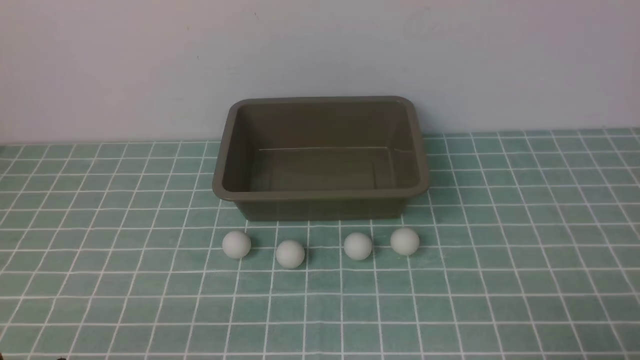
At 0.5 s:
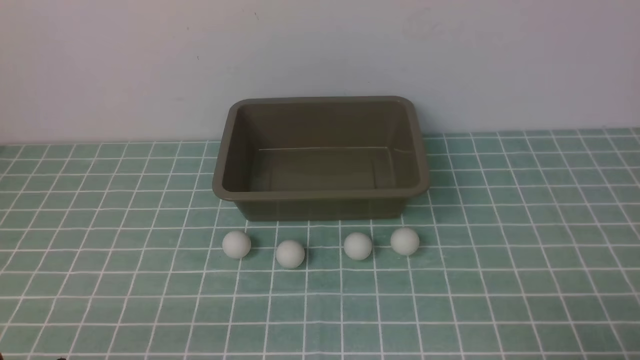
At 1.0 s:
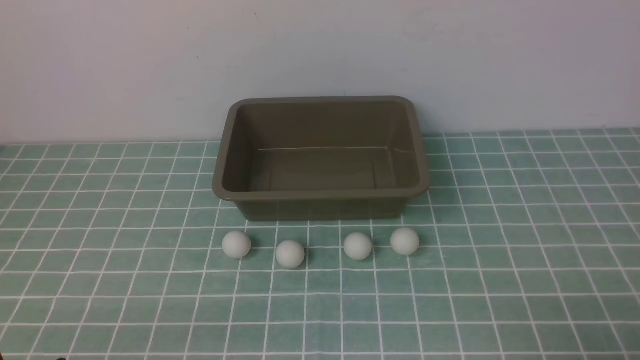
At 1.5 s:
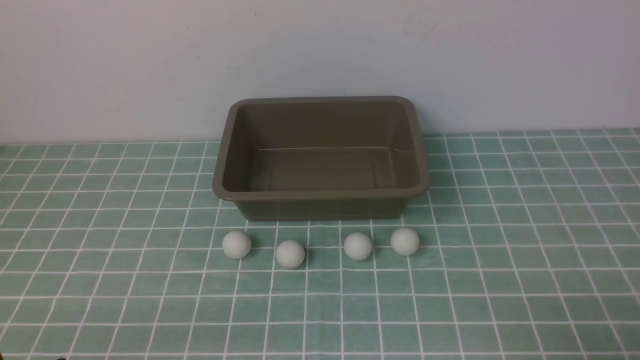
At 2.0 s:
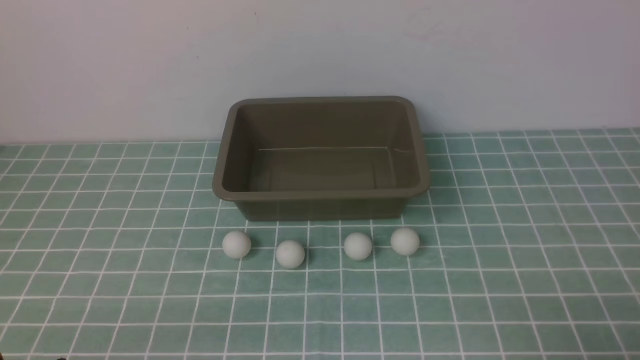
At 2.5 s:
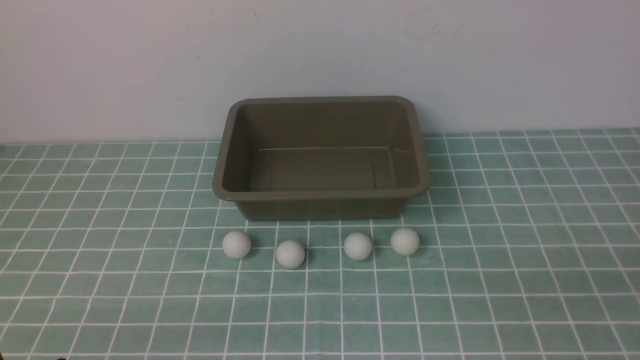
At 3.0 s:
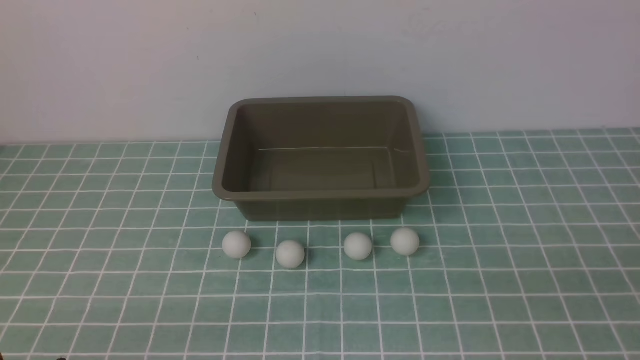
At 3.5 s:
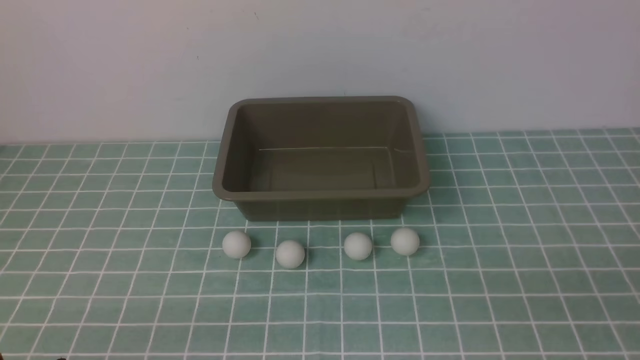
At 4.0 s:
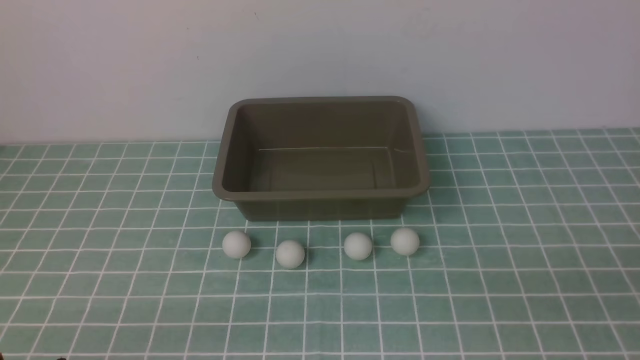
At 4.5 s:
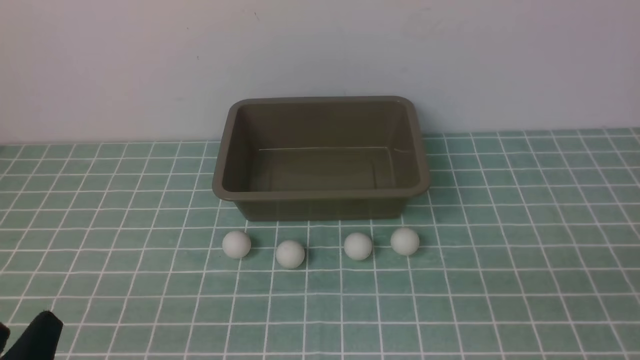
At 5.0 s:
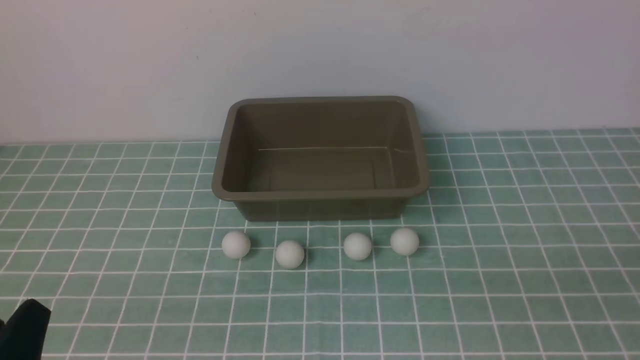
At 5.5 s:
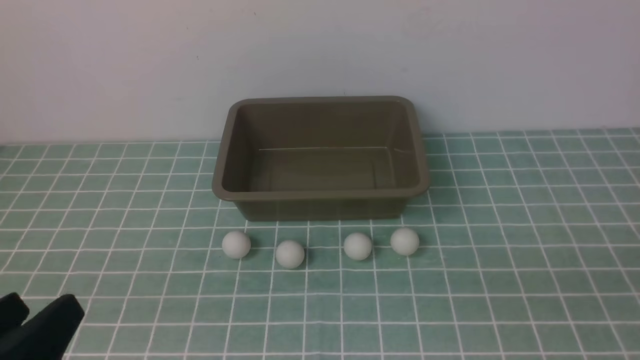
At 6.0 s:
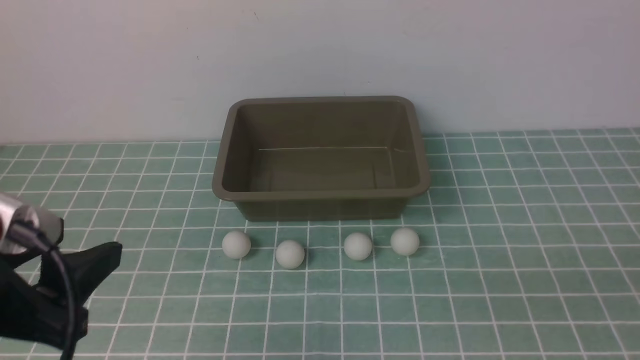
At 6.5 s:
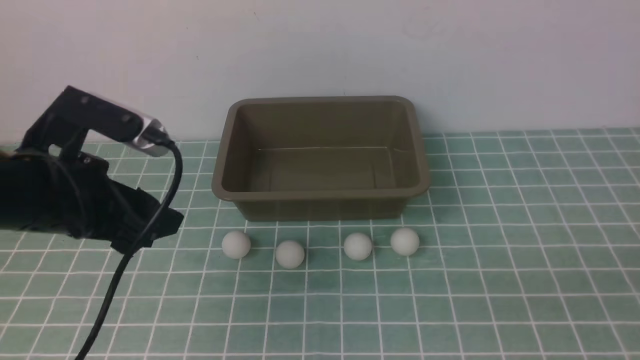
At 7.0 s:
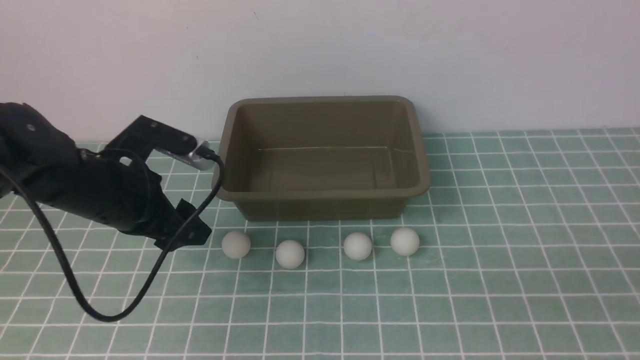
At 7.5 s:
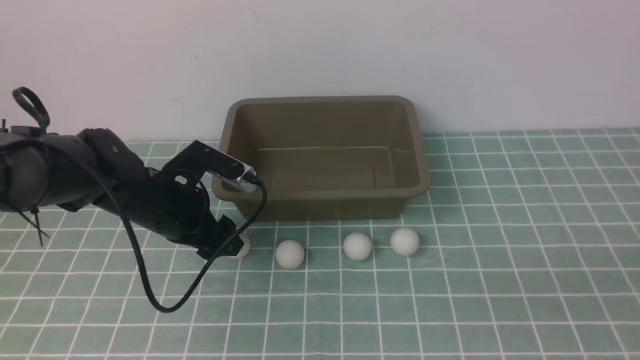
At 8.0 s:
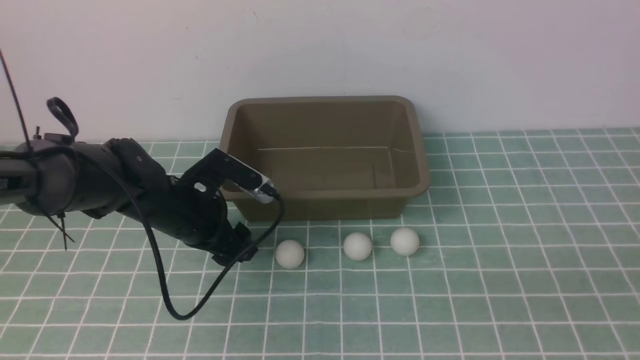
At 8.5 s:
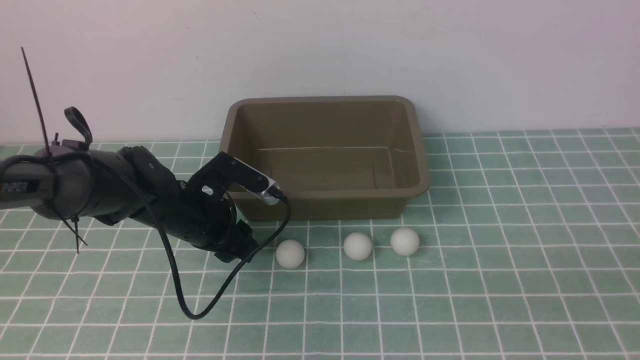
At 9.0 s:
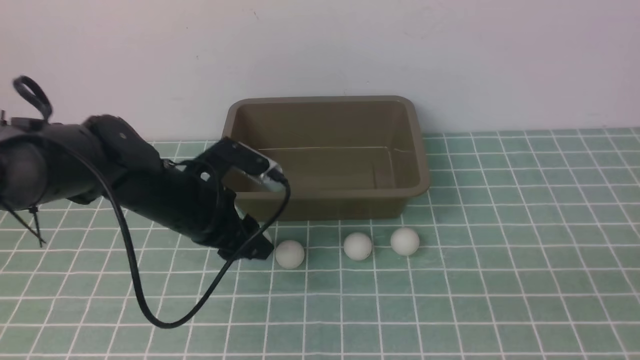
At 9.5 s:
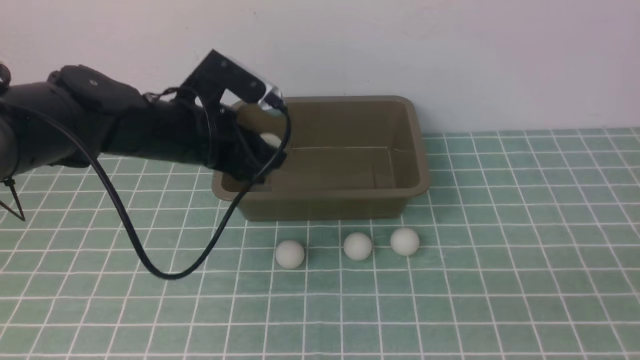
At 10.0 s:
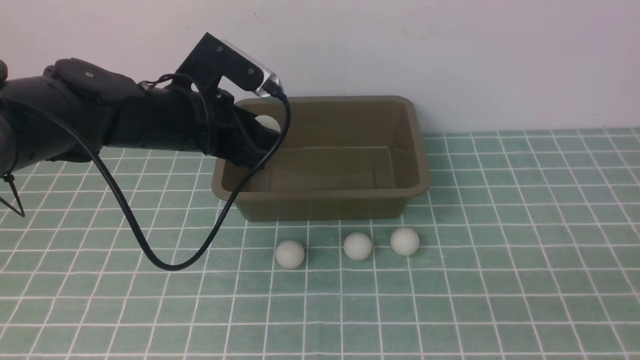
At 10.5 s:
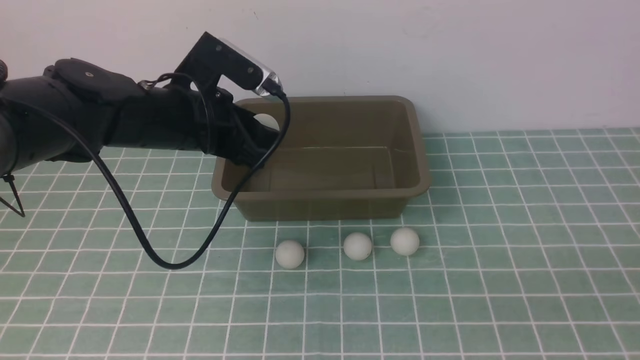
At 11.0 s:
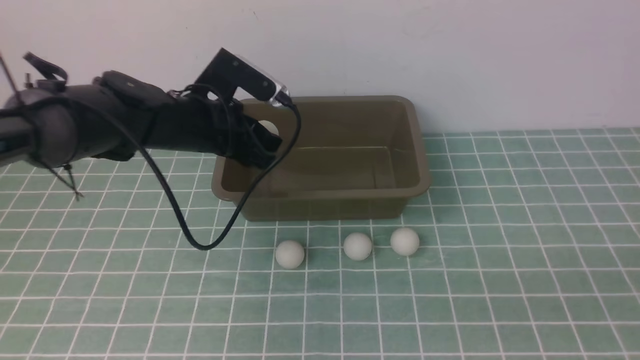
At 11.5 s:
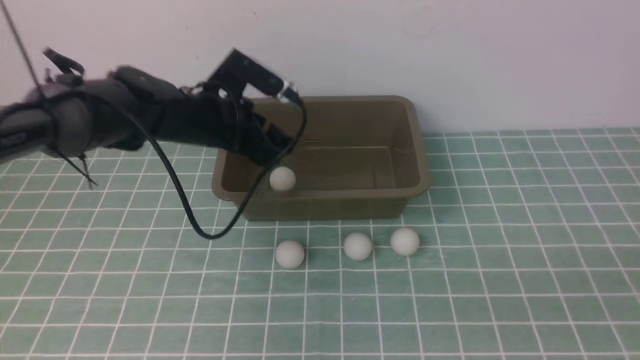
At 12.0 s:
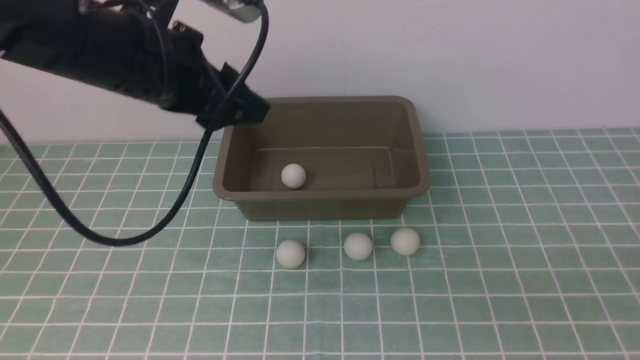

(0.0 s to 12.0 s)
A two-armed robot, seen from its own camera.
Step, 0.0 s - 8.5 s: use the left arm to clamp the table tennis ball closest to it.
Step, 9.0 s - 11.5 s: use the left arm to put the table tennis ball into the box.
0.0 s - 2.0 s: Both grippers stay put.
4.0 s - 6.0 s: The left gripper heads upward and forward, covering roughly 15 cm.
6.0 s - 8.0 s: The left gripper travels forward and downward by some 30 cm.
8.0 s - 10.0 s: The left gripper shifts some 10 cm upward, and closes up.
10.0 s - 12.0 s: The left gripper moves upward, some 10 cm, and opens, then closes once more.

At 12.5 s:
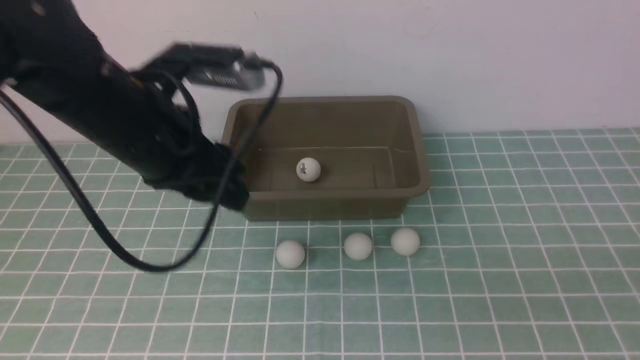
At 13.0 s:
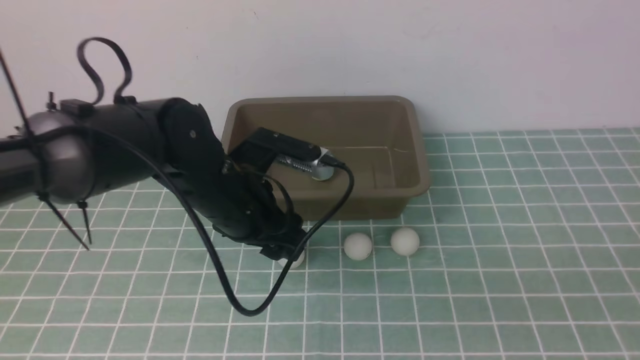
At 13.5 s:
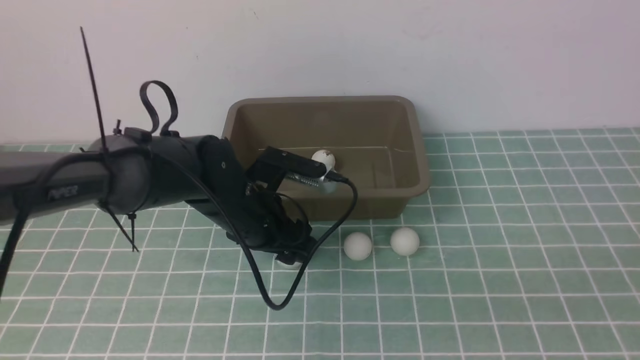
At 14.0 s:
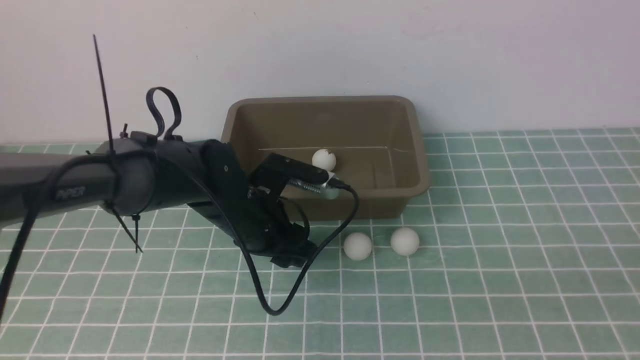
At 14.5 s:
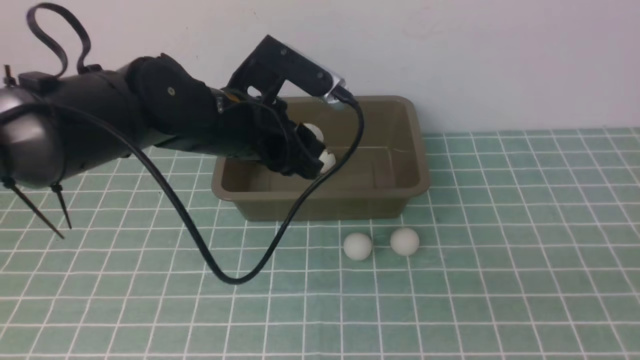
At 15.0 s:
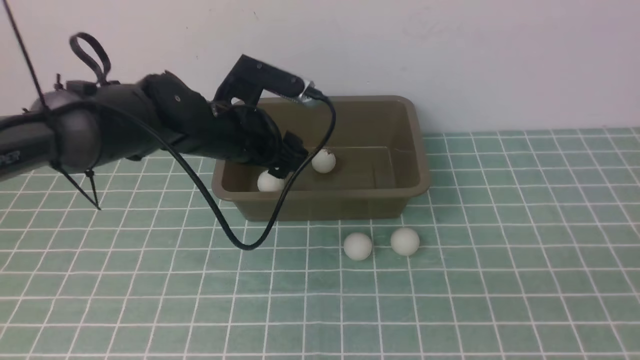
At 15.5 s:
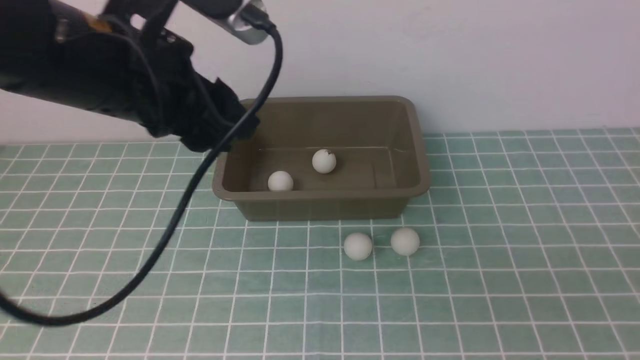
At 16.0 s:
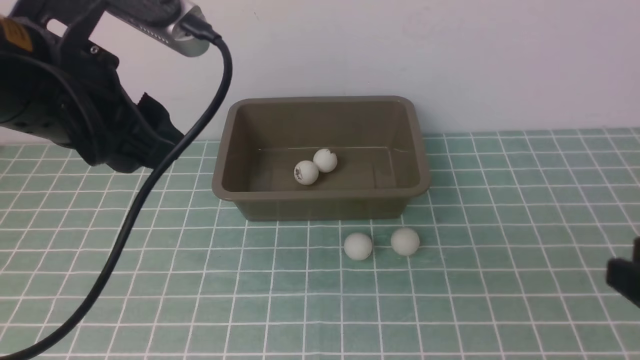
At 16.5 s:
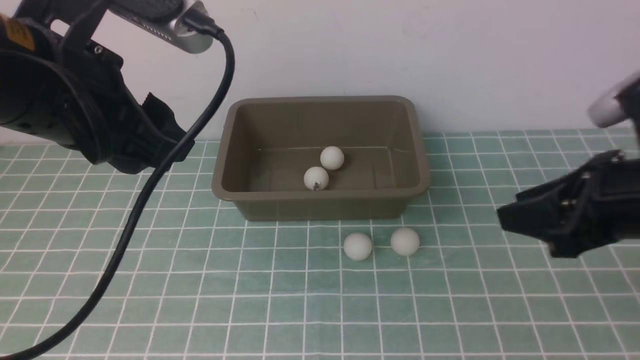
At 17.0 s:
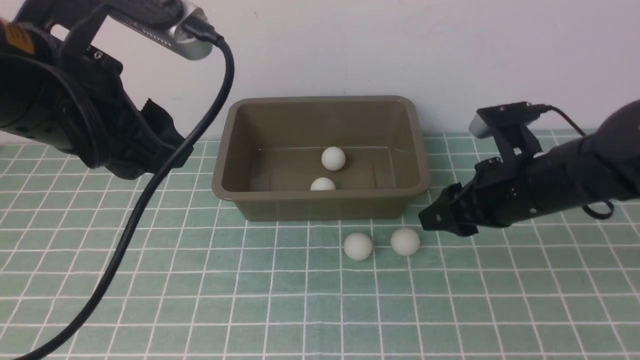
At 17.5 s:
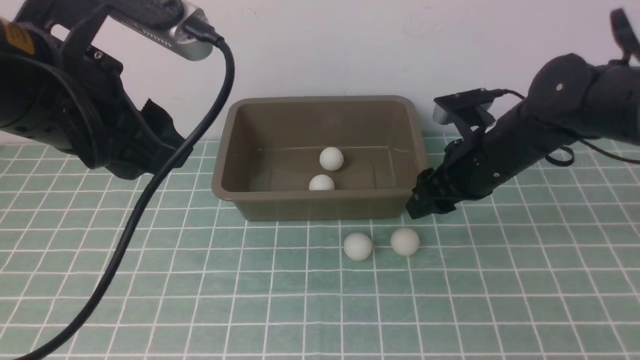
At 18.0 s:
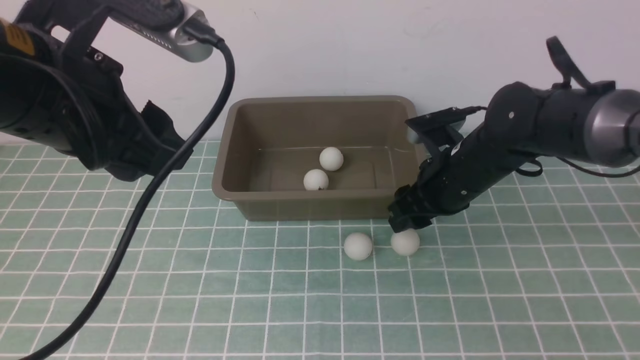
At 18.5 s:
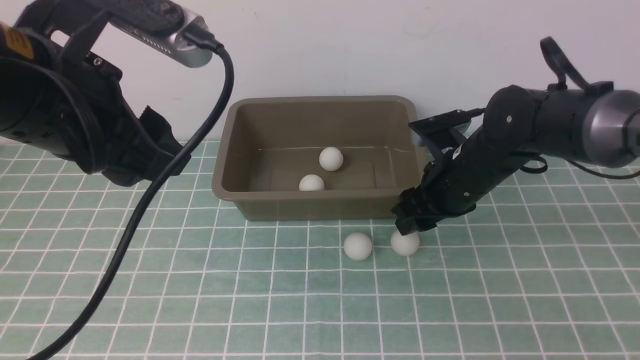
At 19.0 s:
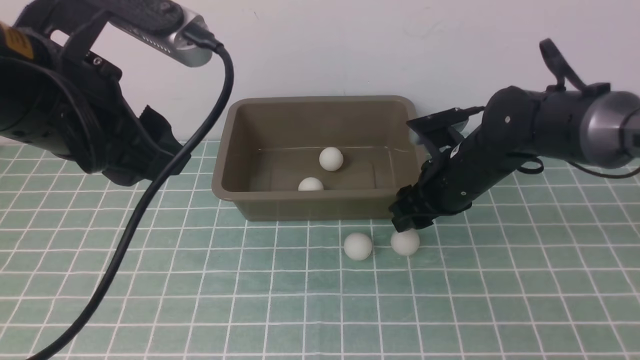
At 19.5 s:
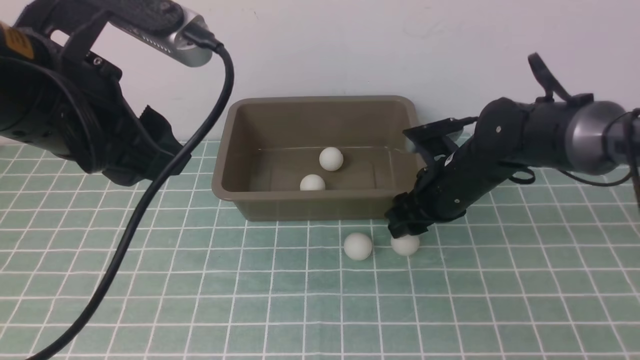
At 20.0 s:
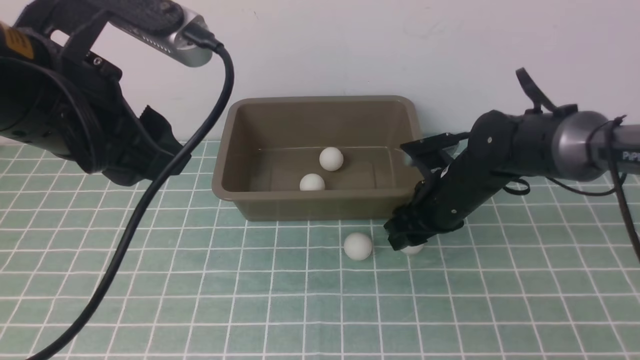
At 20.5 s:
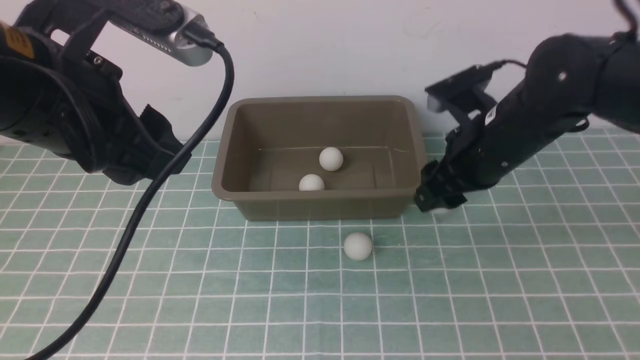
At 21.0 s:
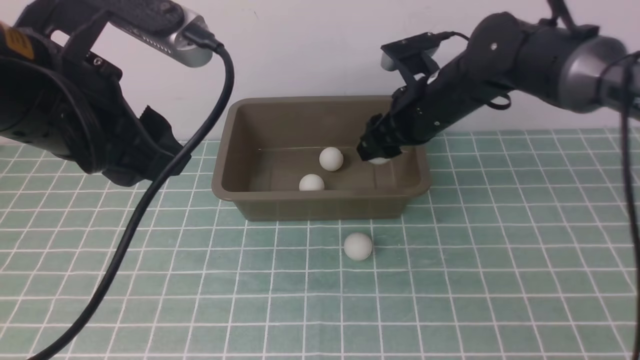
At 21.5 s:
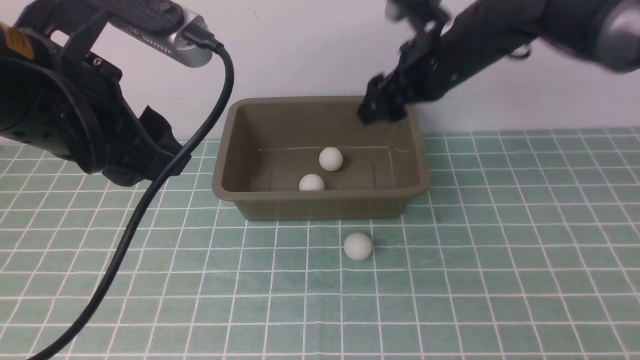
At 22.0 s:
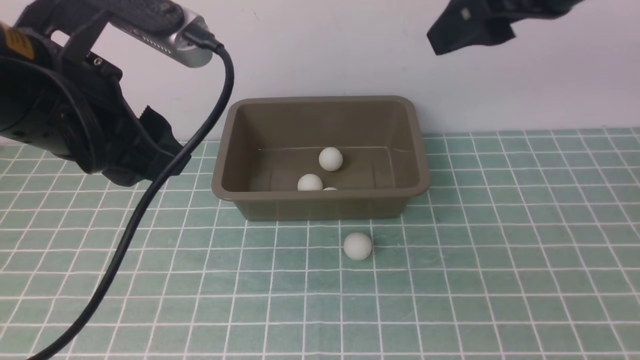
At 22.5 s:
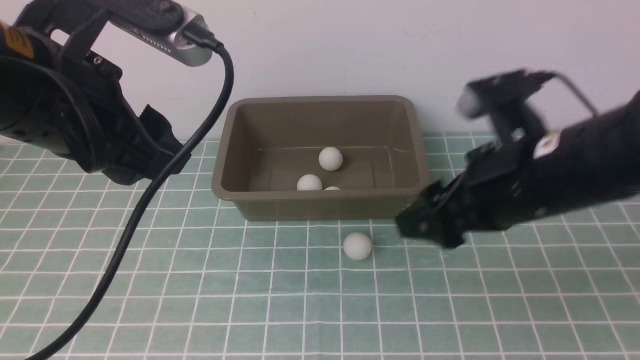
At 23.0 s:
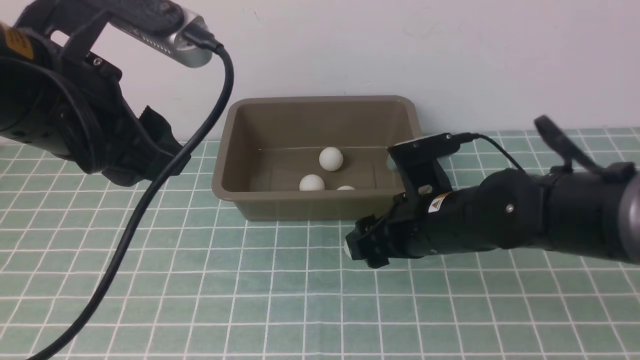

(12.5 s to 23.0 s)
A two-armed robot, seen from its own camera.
Step, 12.5 s - 14.0 s: use the left arm to clamp the table tennis ball closest to it.
Step, 14.5 s - 15.0 s: use the left arm to put the table tennis ball into the box.
Step, 15.5 s - 20.0 s: use the right arm to clamp the table tennis ball closest to it.
Step, 20.5 s - 21.0 s: use the right arm to put the table tennis ball into the box.
12.5 s - 14.5 s: The left gripper shifts approximately 10 cm downward and to the right, and opens, then closes again.
14.5 s - 16.5 s: The left gripper is displaced upward, backward and to the left by about 20 cm, and opens, then closes again. Meanwhile the right gripper moves forward, some 20 cm.
16.5 s - 19.0 s: The right gripper heads forward, downward and to the left, covering approximately 20 cm, and opens its fingers.
19.0 s - 21.0 s: The right gripper heads upward, covering roughly 5 cm.
21.0 s - 23.0 s: The right gripper is displaced backward by roughly 10 cm, and moves approximately 15 cm upward and comes back.
